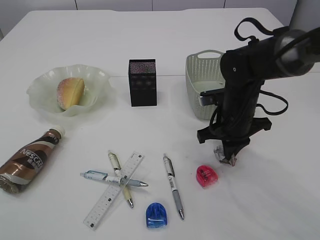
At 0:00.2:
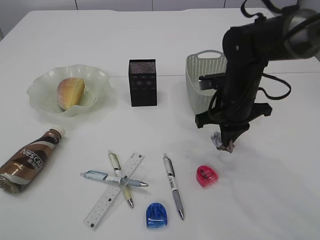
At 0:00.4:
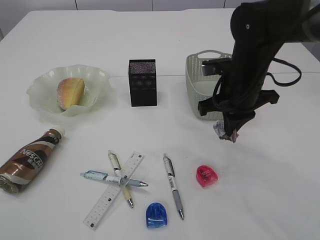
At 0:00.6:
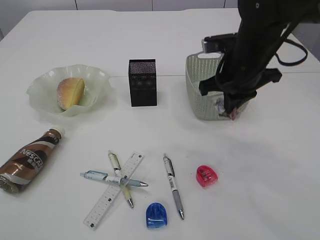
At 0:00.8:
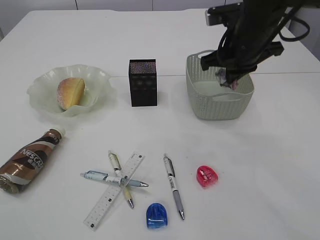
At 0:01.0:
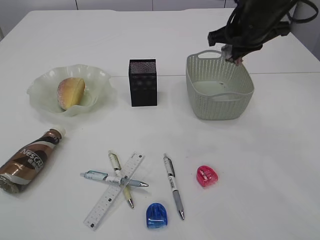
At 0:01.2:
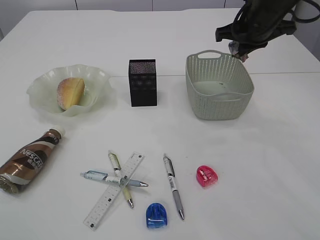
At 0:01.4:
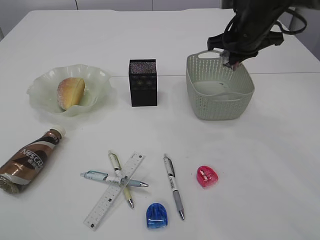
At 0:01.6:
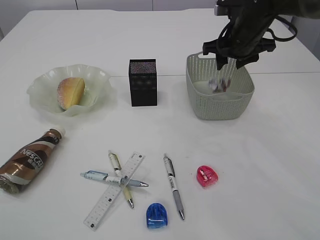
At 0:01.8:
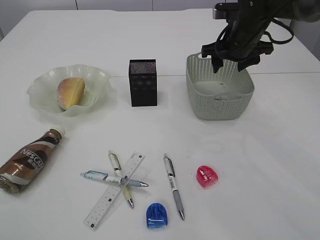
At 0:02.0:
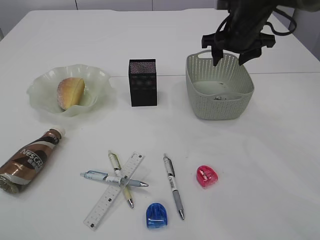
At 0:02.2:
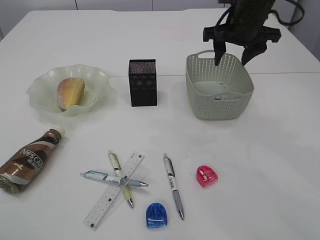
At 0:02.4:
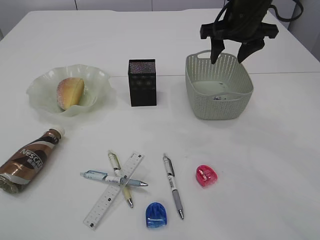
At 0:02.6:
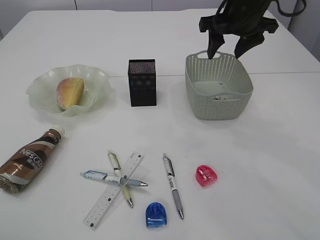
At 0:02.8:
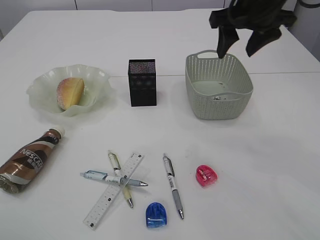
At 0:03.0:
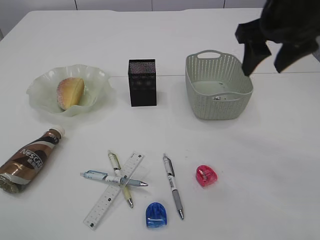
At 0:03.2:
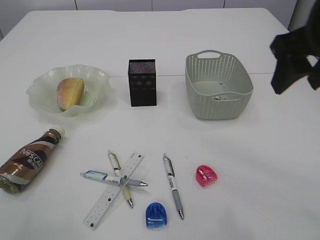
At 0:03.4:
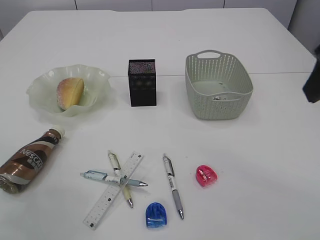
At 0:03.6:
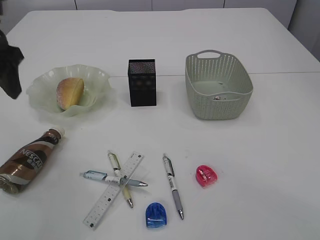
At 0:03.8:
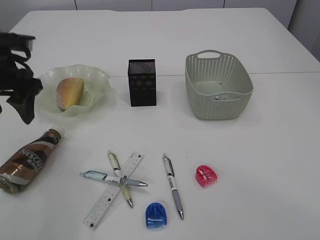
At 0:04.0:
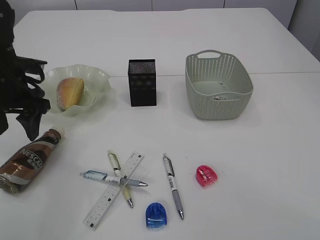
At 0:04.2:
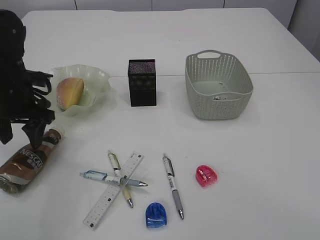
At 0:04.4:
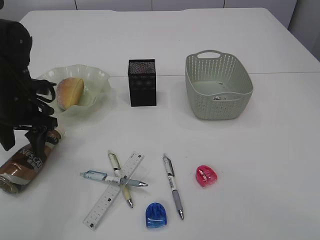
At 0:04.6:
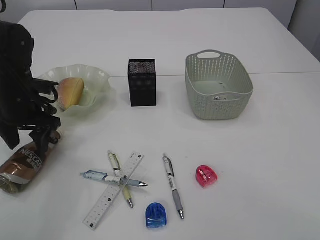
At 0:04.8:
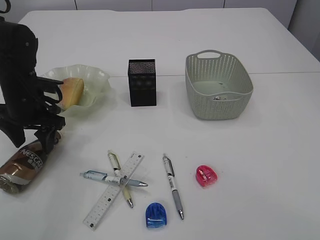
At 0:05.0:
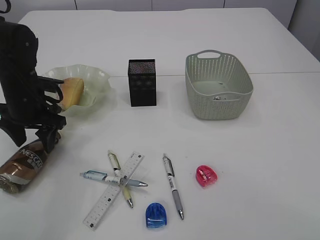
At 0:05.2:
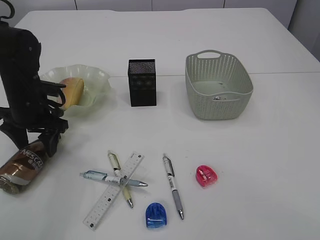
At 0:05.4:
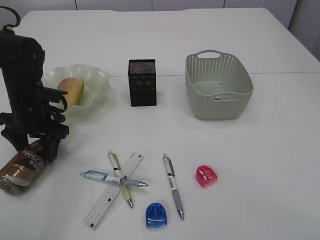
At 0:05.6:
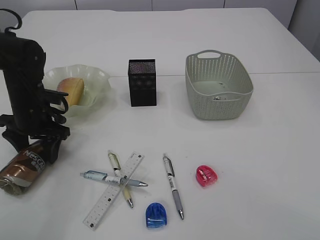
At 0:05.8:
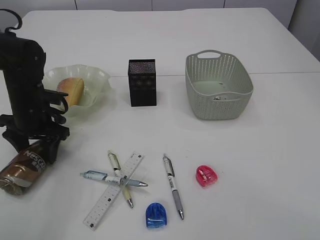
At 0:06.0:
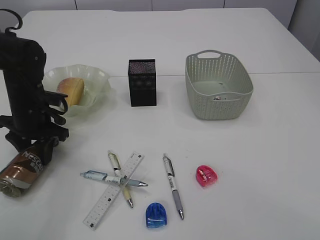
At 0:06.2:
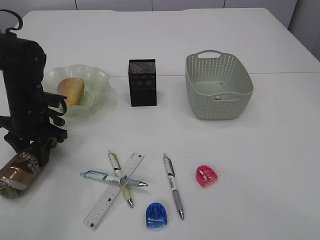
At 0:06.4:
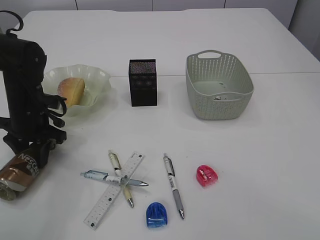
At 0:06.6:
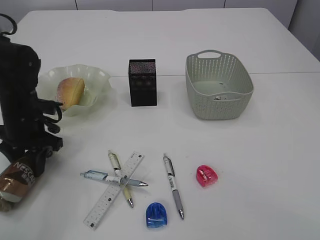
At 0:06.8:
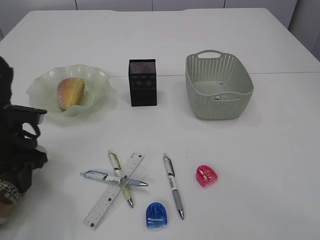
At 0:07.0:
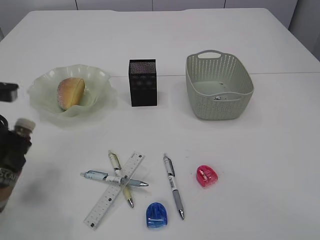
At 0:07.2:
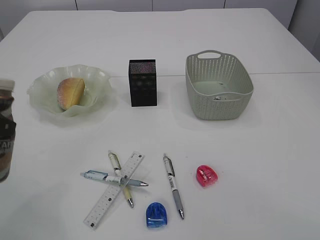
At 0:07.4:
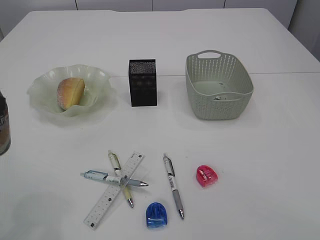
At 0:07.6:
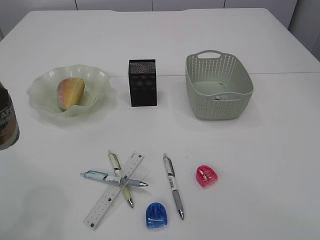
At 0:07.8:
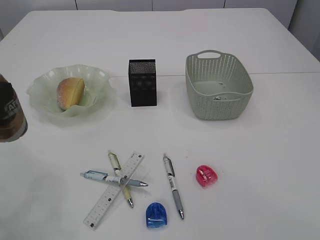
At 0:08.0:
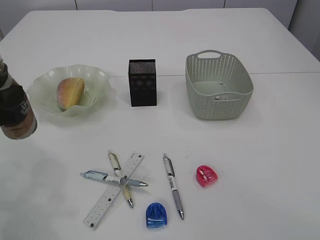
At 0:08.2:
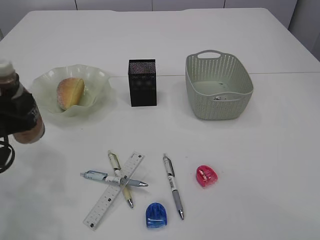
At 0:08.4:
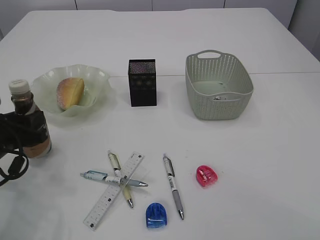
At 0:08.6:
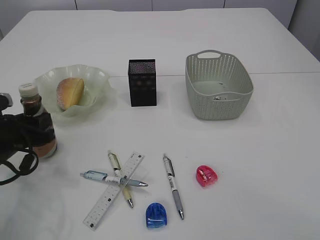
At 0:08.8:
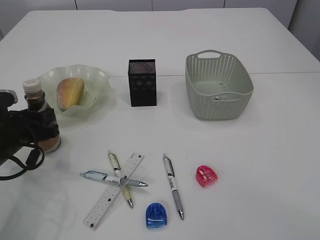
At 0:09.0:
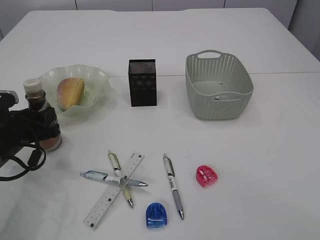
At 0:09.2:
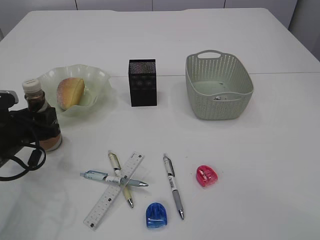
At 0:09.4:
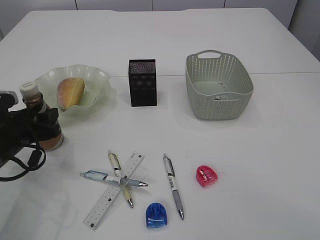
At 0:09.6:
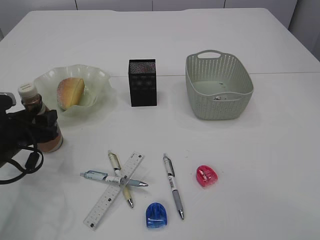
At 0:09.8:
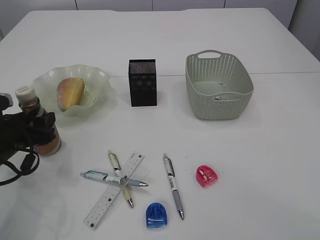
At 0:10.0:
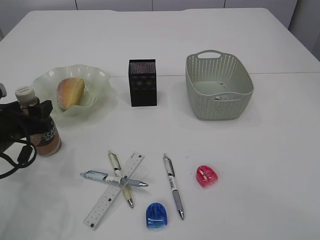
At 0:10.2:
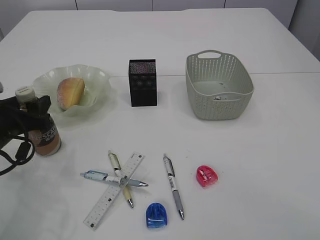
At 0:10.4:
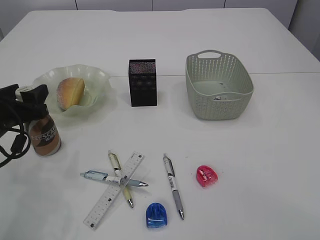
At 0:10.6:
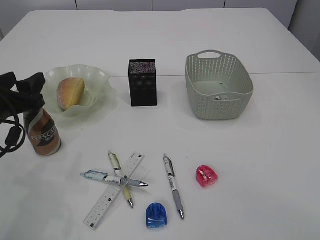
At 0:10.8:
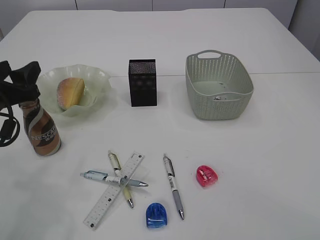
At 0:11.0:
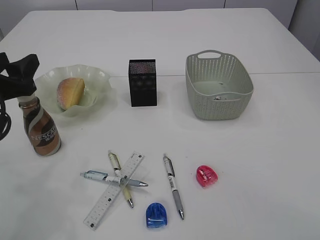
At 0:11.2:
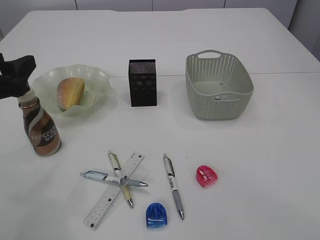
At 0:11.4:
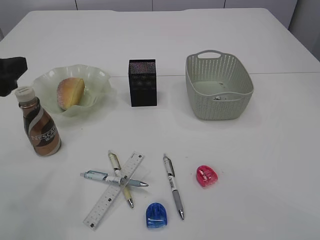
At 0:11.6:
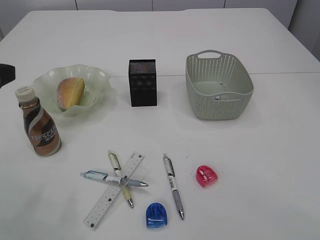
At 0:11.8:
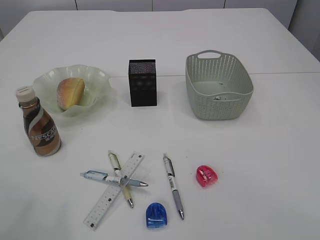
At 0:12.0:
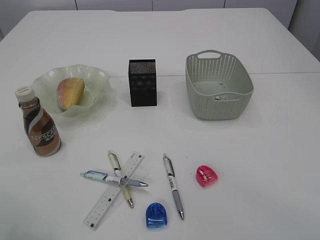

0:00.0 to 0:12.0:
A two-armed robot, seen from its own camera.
Step, 0:00.4 to 0:02.4: Place the waste paper in the basket.
Step, 0:02.6 to 0:07.0: Pick up the bottle with the left arm.
Step, 0:07.2 to 0:11.0: Place the bottle.
0:00.0 to 0:01.6: The right gripper moves upward and forward, roughly 15 cm, and opens.
0:01.6 to 0:03.0: The right gripper travels backward and upward by about 15 cm.
0:03.0 to 0:04.4: The right gripper heads backward, covering some 25 cm. The left gripper heads downward and forward, covering some 35 cm.
0:04.4 to 0:06.0: The left gripper closes its fingers.
0:06.0 to 0:07.6: The left gripper shifts some 20 cm backward and upward.
0:07.6 to 0:09.0: The left gripper heads downward and forward, covering some 20 cm.
0:09.0 to 0:10.4: The left gripper opens.
0:10.4 to 0:12.0: The left gripper heads upward and backward, covering roughly 20 cm.

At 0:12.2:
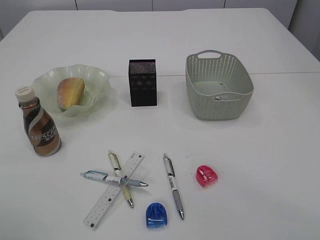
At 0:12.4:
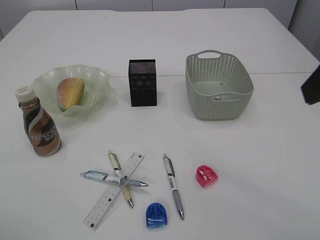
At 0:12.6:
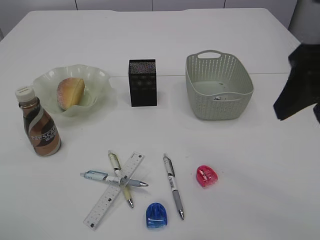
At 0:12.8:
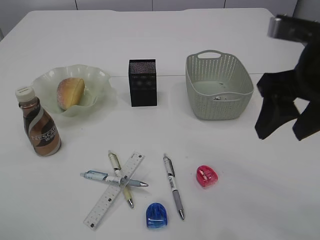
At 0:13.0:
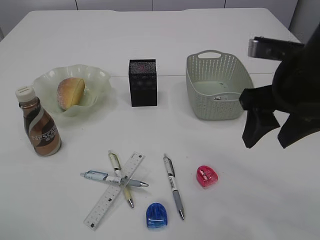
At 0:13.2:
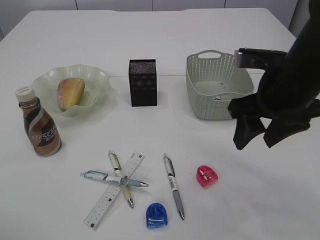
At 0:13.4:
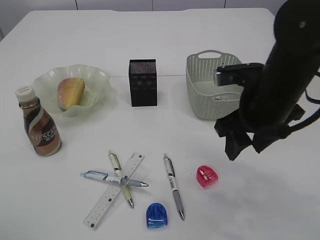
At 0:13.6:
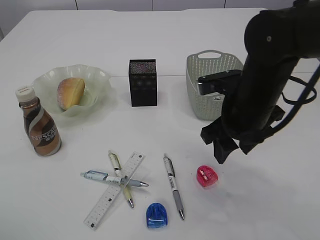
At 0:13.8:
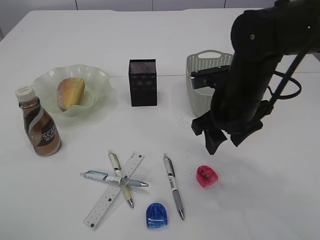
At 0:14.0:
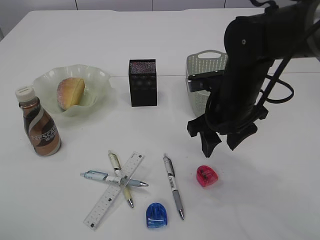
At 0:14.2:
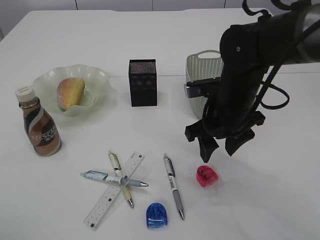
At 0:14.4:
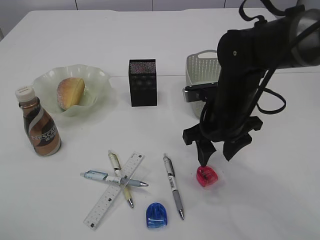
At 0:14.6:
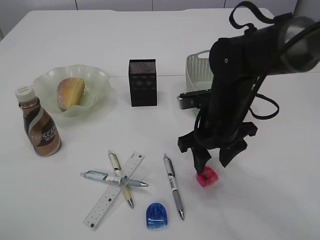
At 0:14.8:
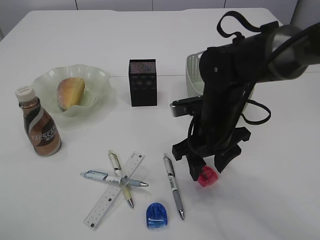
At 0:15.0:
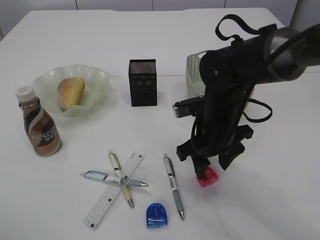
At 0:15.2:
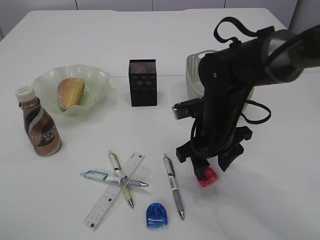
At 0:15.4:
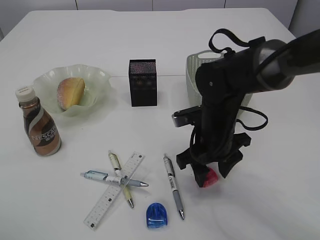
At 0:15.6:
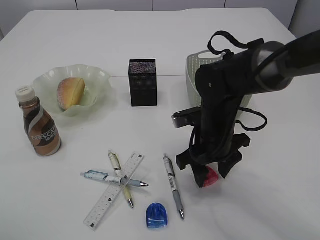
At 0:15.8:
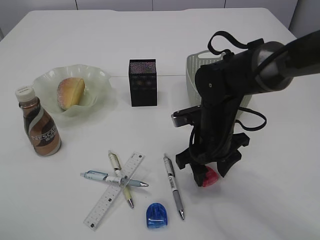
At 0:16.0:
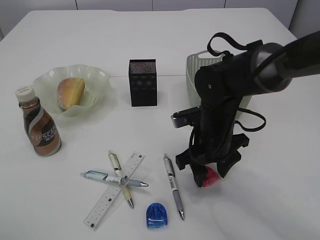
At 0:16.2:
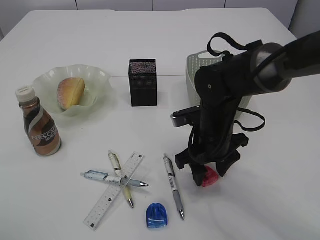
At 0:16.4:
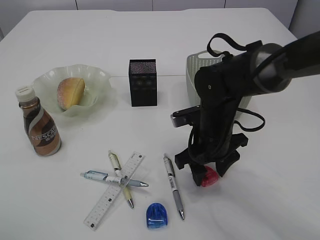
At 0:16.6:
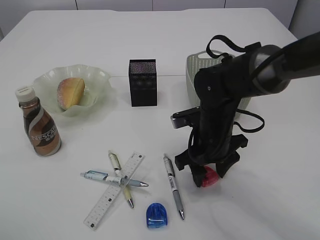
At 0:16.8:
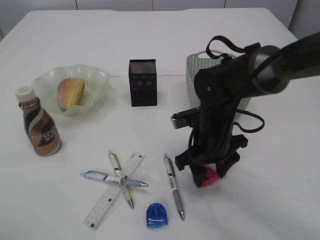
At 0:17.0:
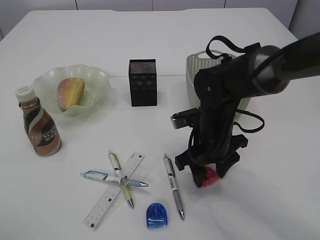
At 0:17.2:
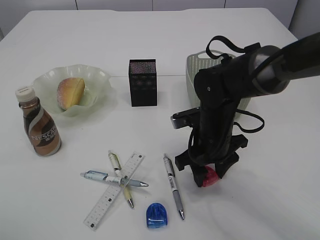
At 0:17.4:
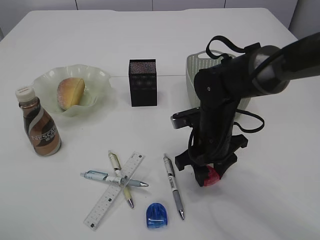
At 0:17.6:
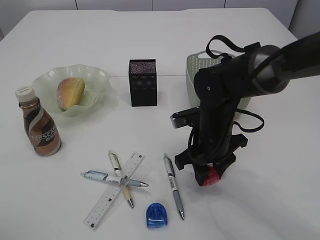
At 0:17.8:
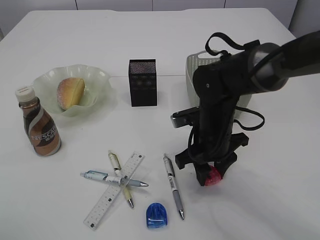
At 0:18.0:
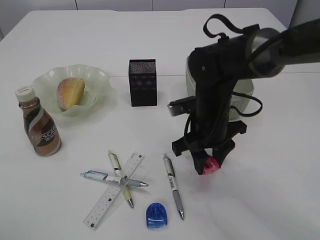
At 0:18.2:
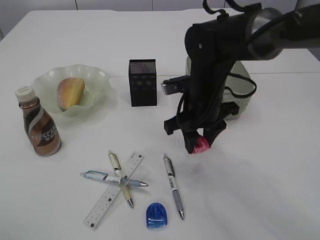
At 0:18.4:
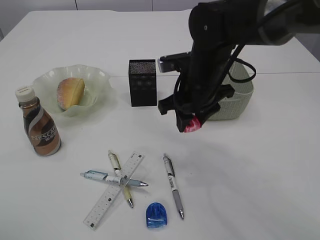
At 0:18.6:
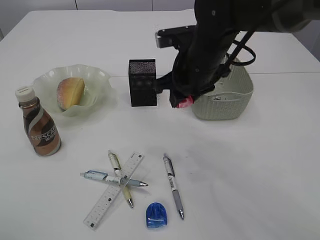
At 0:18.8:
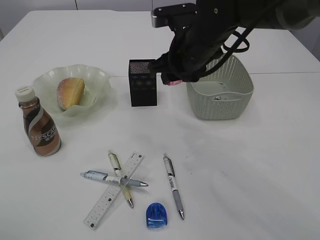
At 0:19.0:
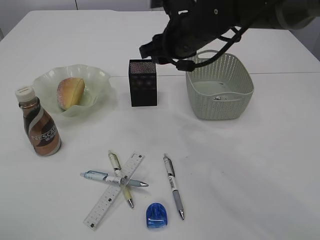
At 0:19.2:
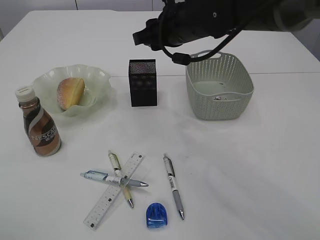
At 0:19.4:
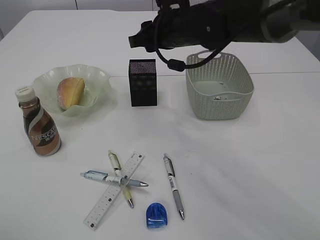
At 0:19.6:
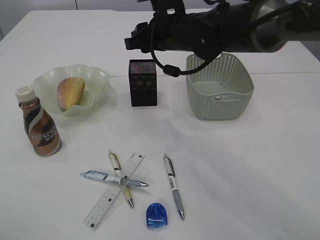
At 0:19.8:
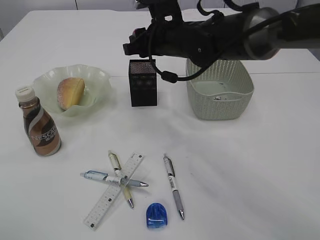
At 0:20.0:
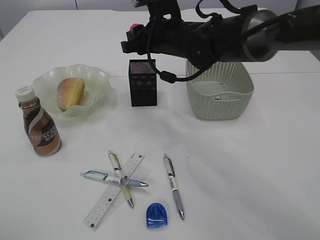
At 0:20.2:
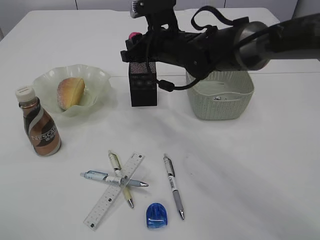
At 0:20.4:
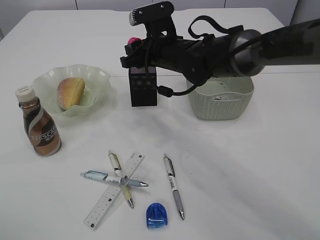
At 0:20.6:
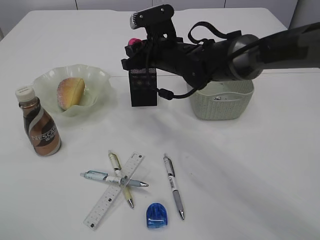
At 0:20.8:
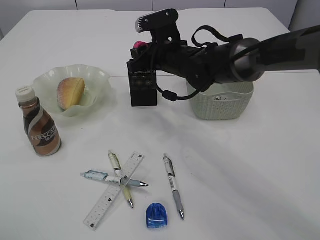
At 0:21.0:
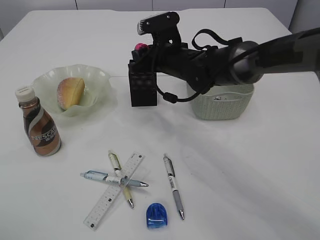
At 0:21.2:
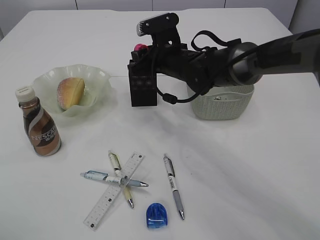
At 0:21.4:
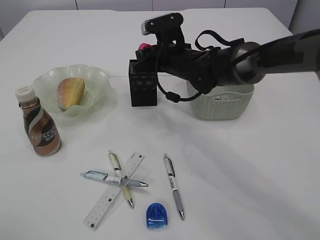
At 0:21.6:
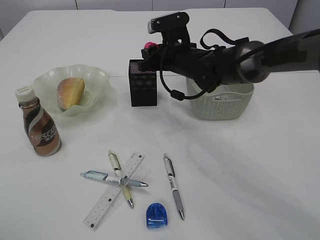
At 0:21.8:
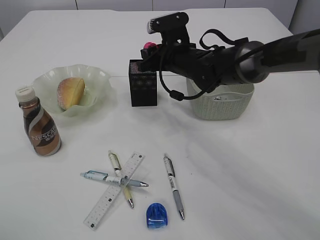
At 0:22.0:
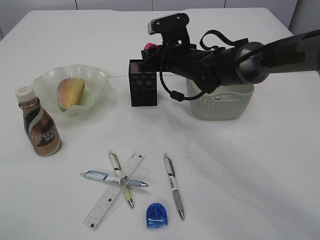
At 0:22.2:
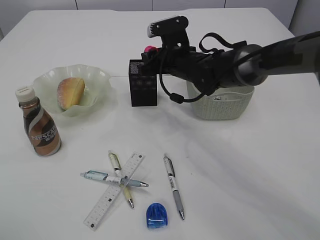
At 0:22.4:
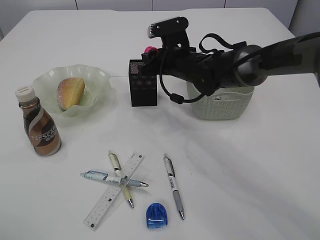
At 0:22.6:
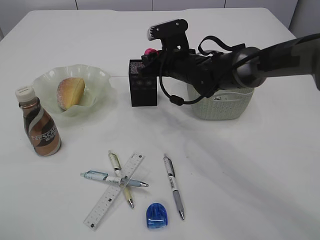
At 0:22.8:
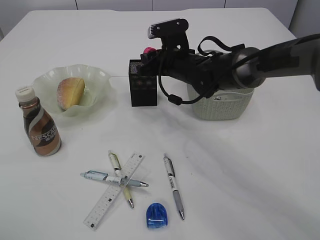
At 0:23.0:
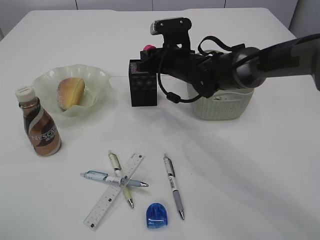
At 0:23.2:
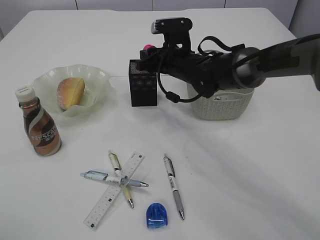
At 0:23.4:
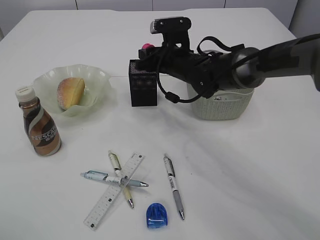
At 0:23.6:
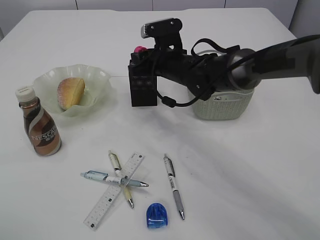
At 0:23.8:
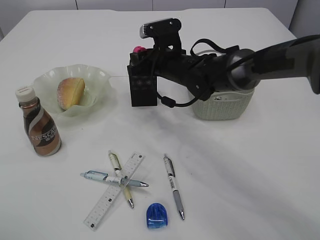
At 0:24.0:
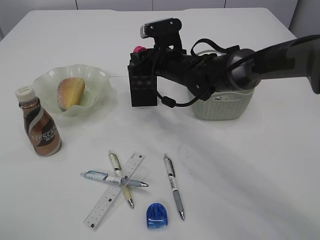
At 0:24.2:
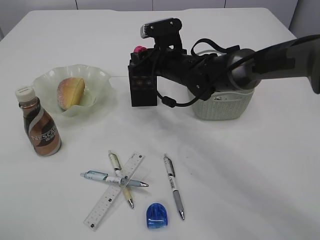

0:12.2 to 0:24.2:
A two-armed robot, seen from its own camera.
Step, 0:12.2 to 0:18.2: Pick up the red pencil sharpener.
0:12.2 to 0:13.8: The right gripper goes roughly 30 cm downward, forward and to the left.
0:13.8 to 0:15.2: The right gripper goes some 5 cm downward.
0:15.2 to 0:16.6: The grippers make only small movements.
0:16.6 to 0:18.2: The right gripper is displaced upward by some 5 cm.
0:18.2 to 0:19.8: The right gripper shifts roughly 10 cm forward and upward.
0:19.8 to 0:21.2: The right gripper is displaced downward by roughly 5 cm.
0:21.2 to 0:24.2: There are only small adjustments of the grippers.
